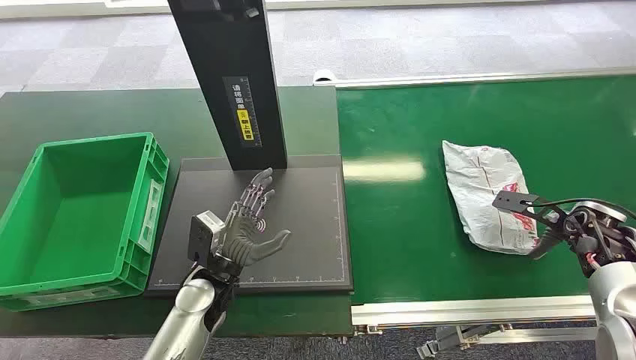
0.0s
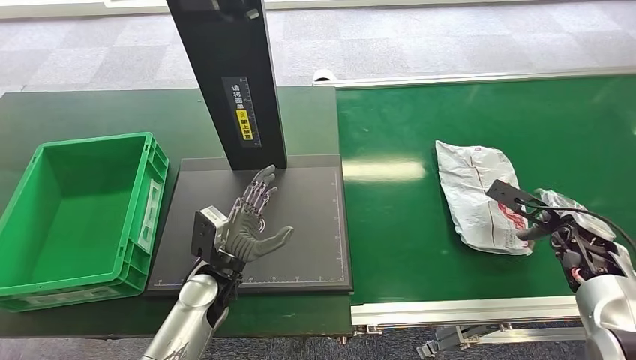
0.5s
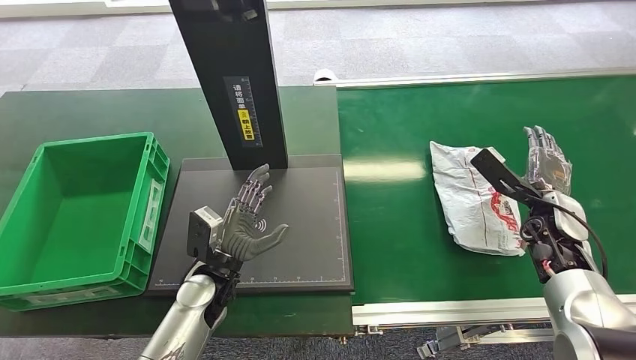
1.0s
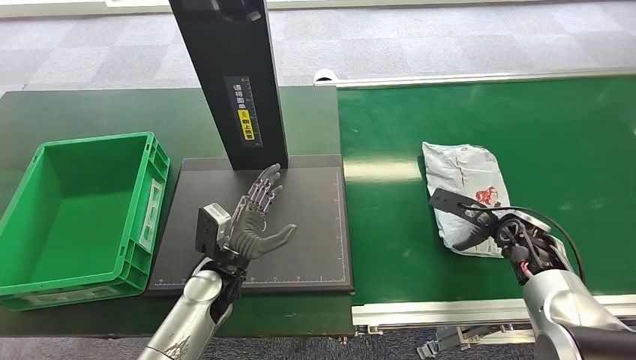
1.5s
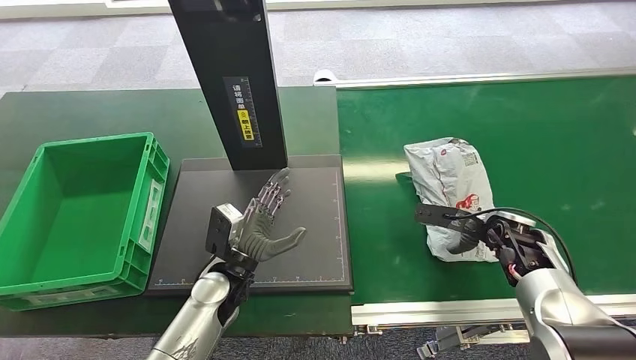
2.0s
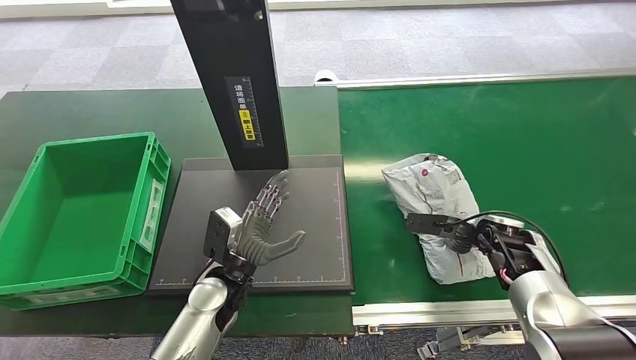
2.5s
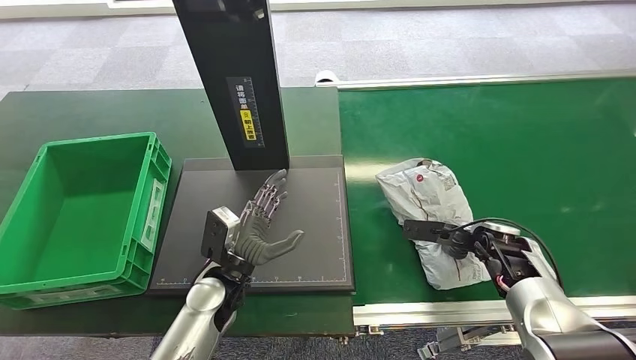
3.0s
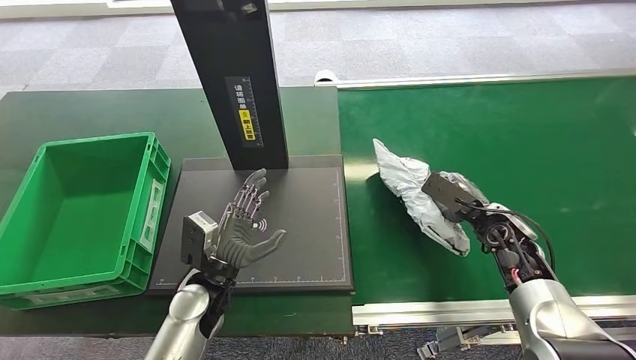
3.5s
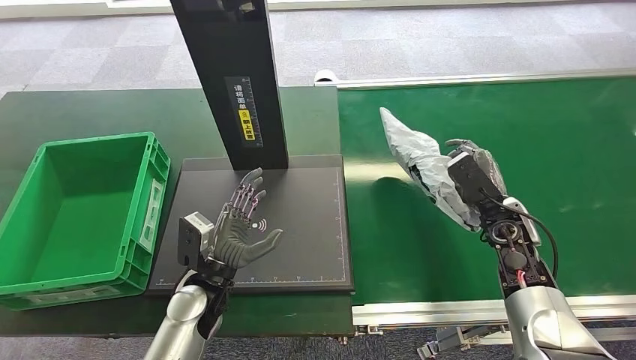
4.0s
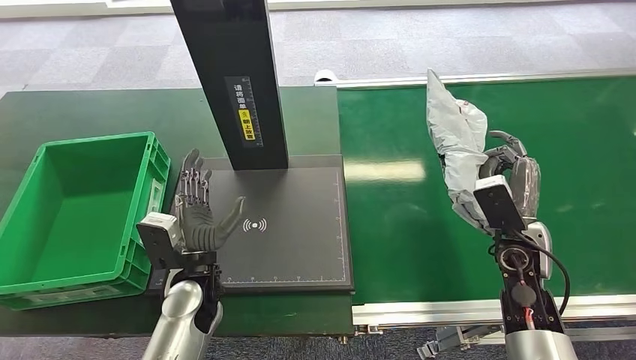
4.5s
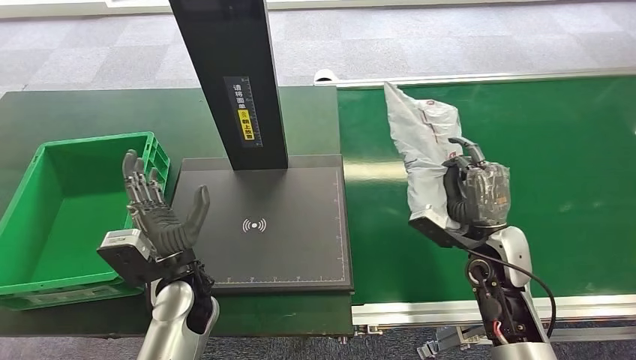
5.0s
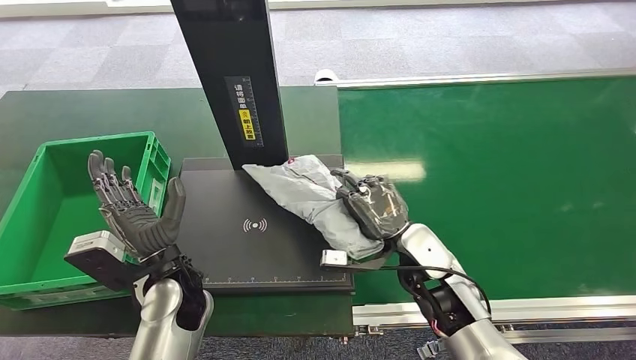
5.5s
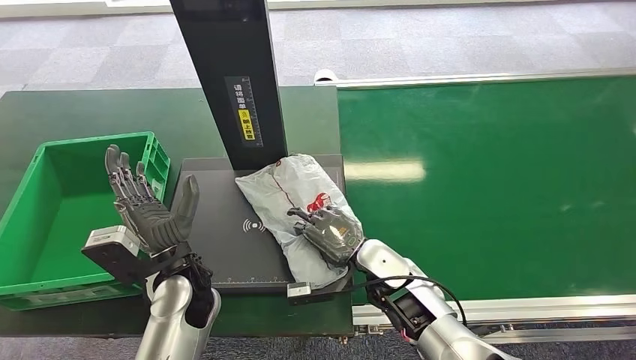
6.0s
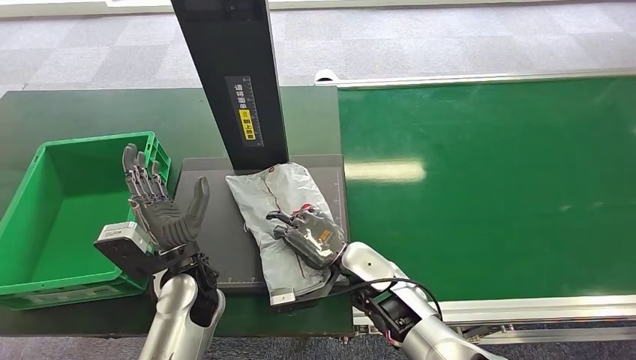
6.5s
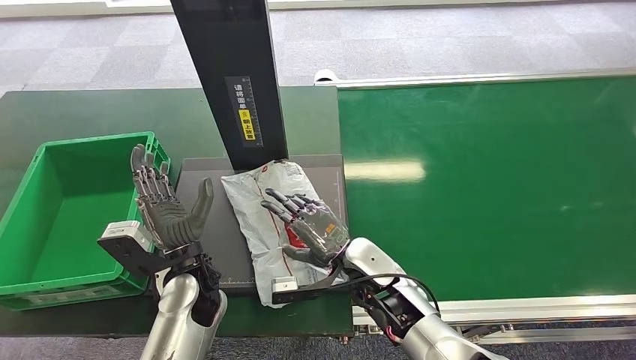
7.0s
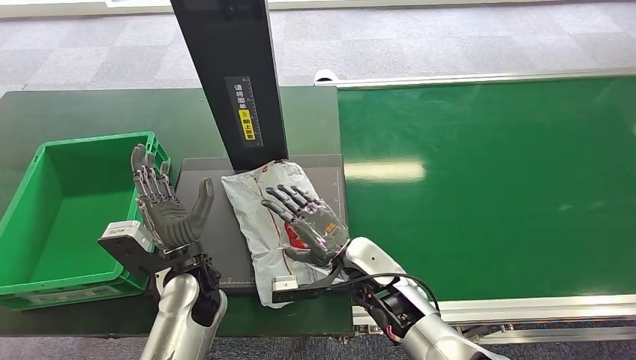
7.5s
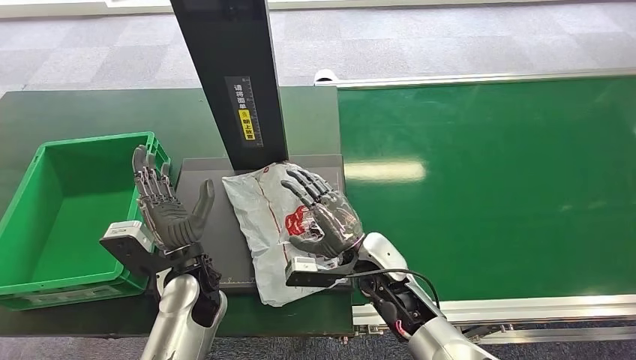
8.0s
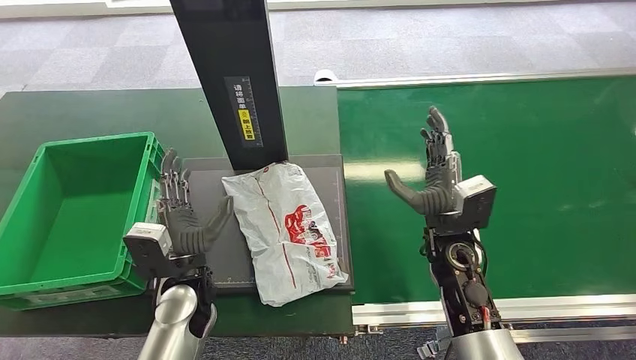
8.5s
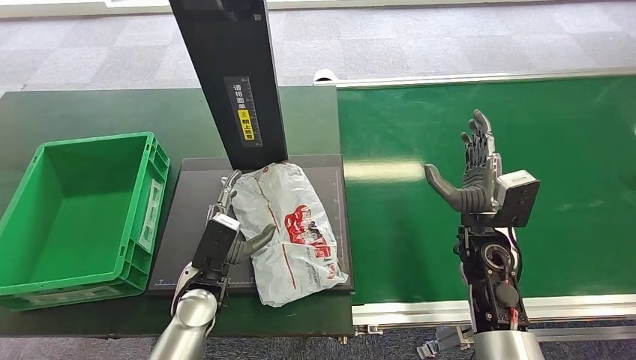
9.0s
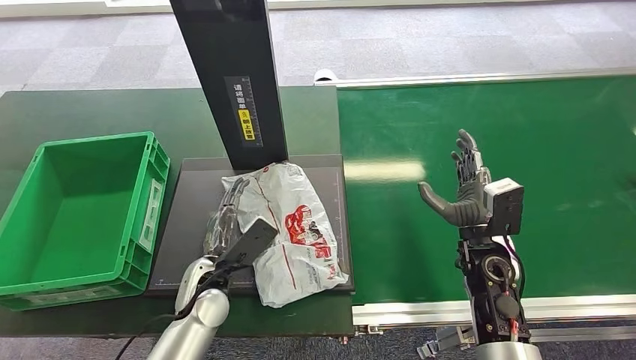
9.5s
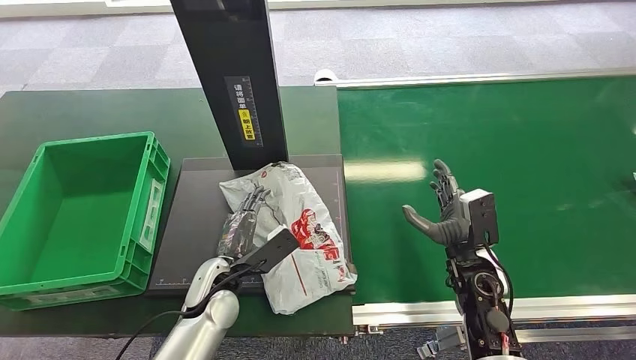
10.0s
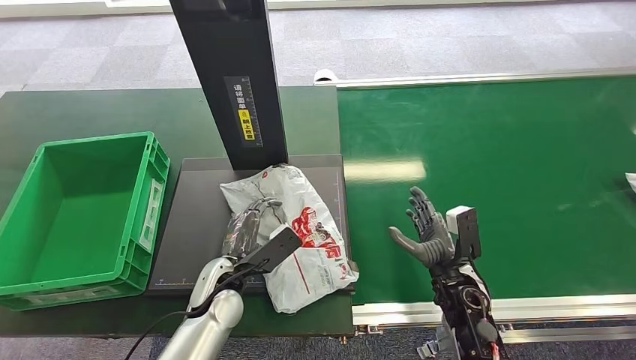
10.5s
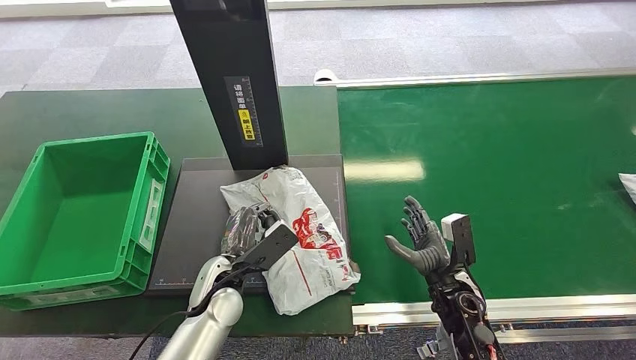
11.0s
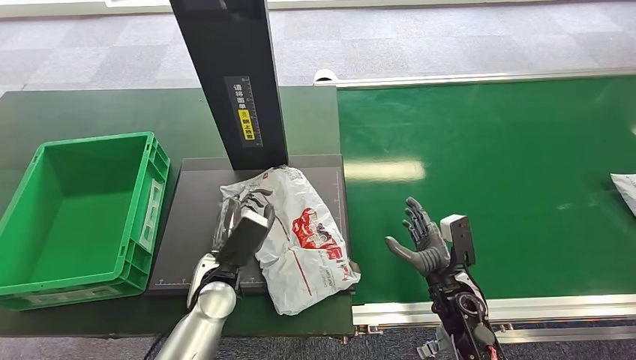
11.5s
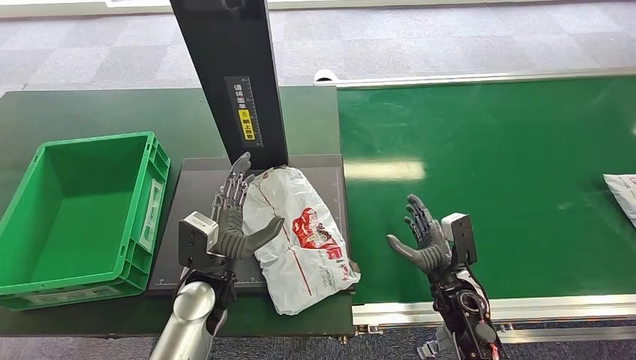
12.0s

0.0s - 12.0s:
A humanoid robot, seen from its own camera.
Step, 0.0s - 5.0s: Pick up the package from the conveyor belt.
Step, 5.5s - 7.0s: Place the package onto the inbound machine.
8.0s - 10.0s: The left hand goes roughly 5 cm downward; the right hand is displaced to the right by some 15 cm.
10.0s - 12.0s: The right hand travels downward by approximately 5 cm.

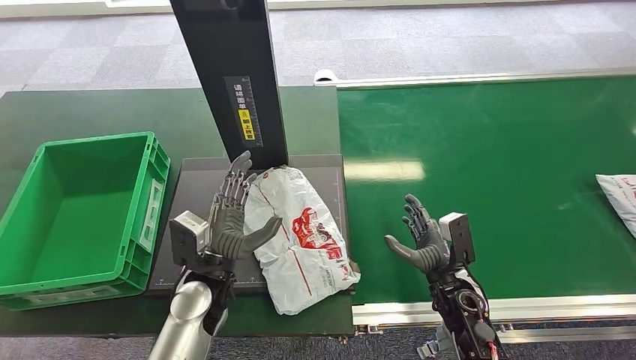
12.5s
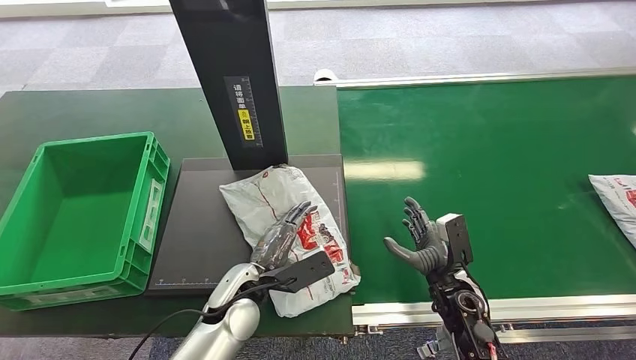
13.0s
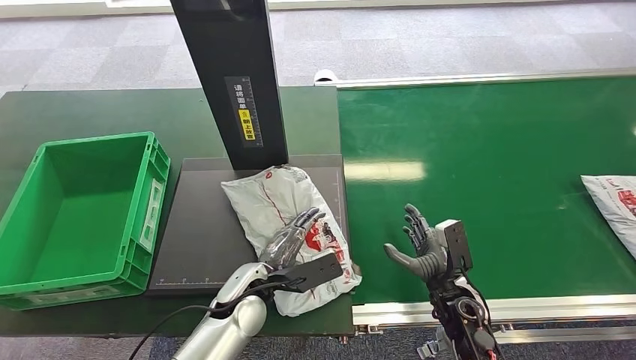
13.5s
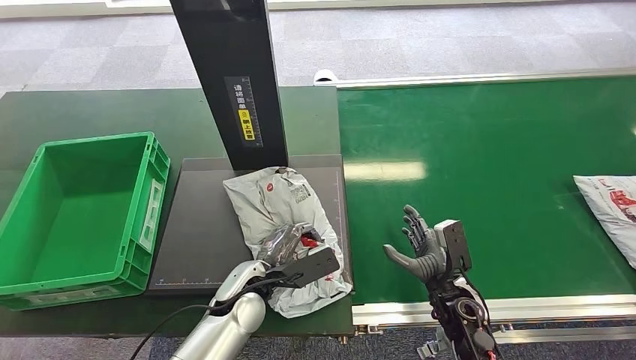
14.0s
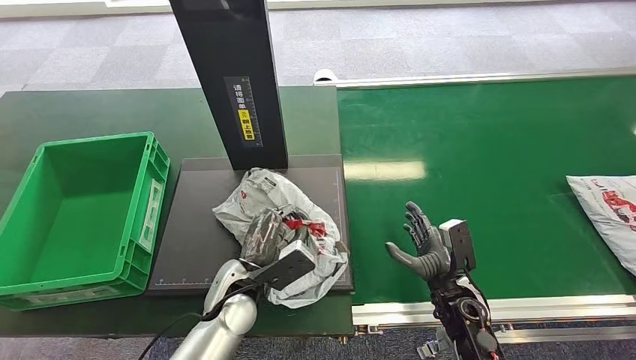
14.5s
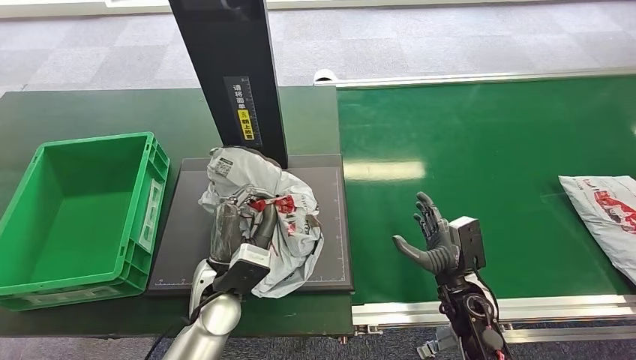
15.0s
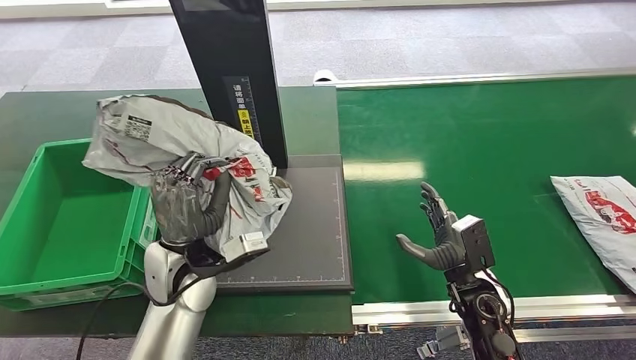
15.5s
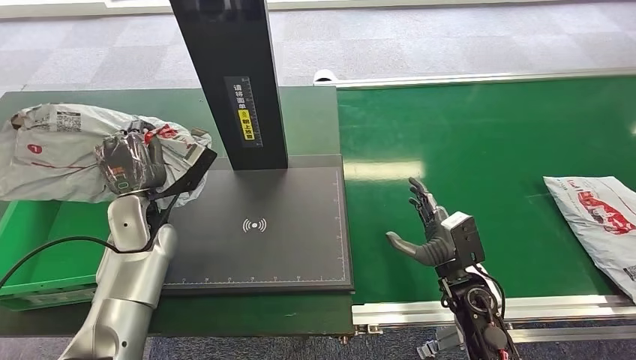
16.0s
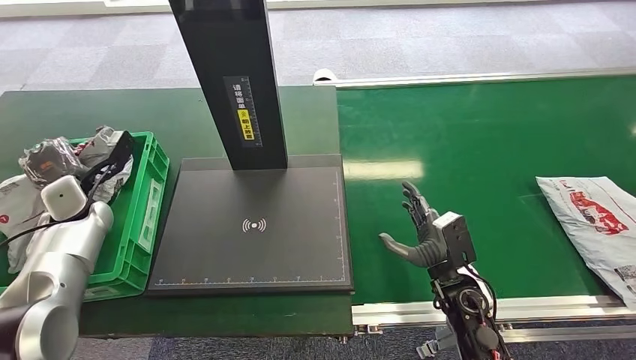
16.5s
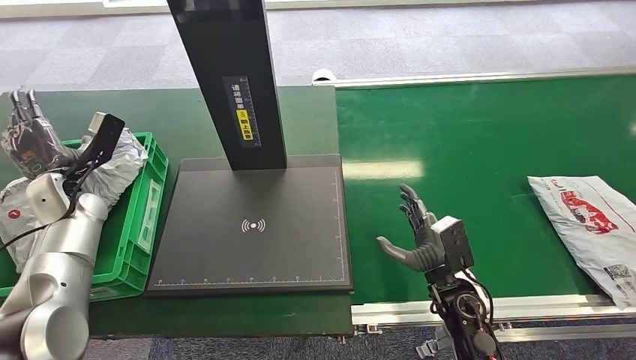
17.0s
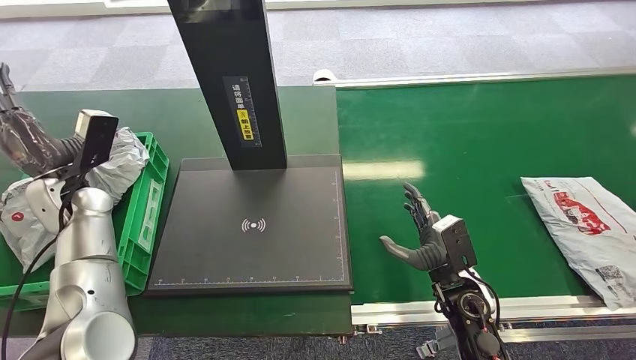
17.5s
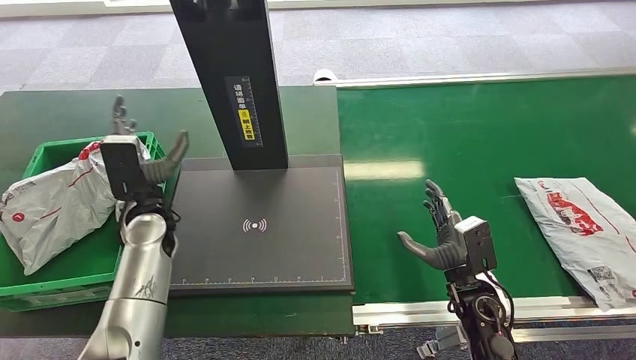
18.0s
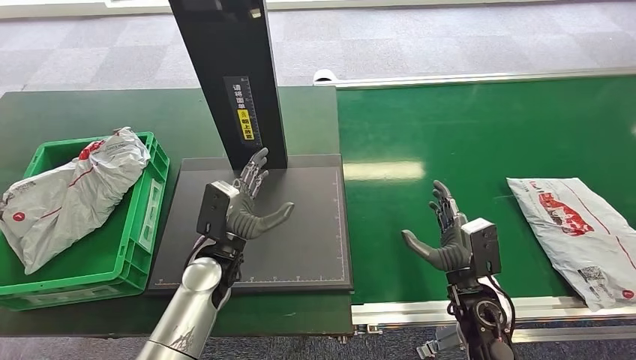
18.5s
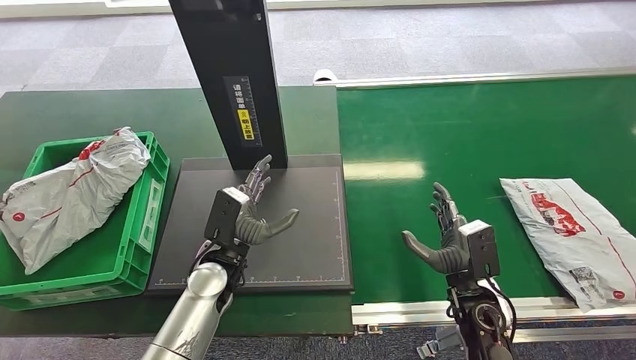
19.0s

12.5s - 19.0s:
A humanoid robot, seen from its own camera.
Step, 12.5s - 15.5s: Pick up the package from the inbound machine.
Step, 16.0s - 19.0s: Place the package into the parcel locker.
